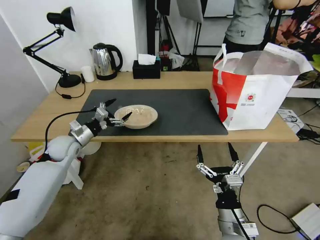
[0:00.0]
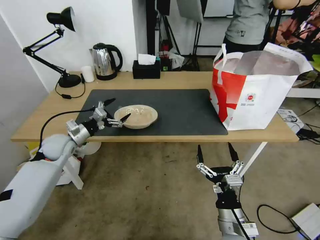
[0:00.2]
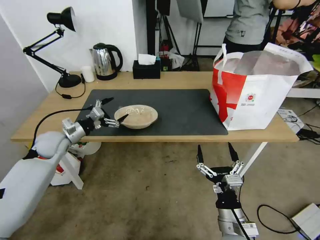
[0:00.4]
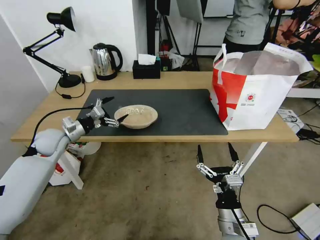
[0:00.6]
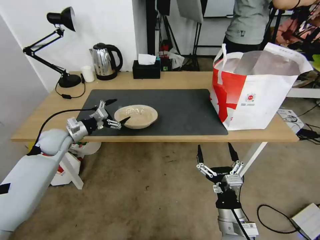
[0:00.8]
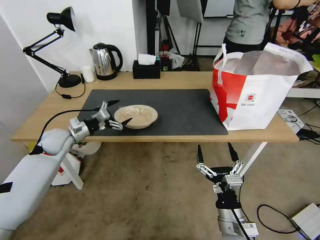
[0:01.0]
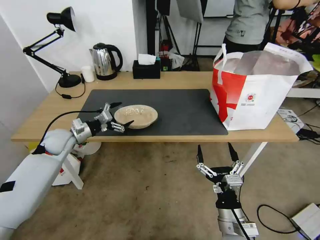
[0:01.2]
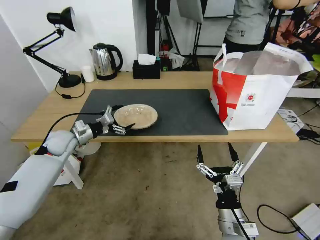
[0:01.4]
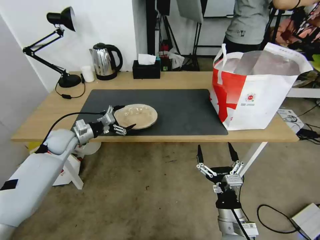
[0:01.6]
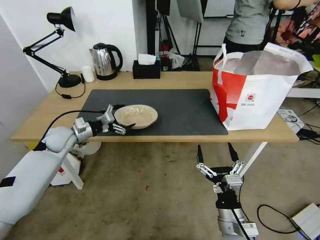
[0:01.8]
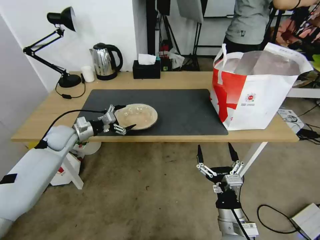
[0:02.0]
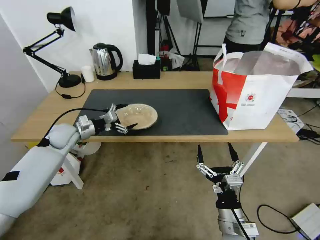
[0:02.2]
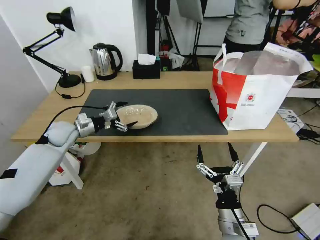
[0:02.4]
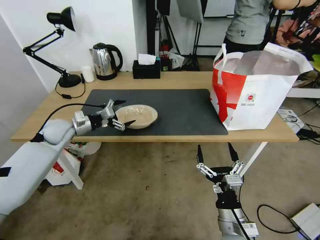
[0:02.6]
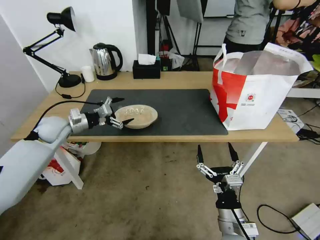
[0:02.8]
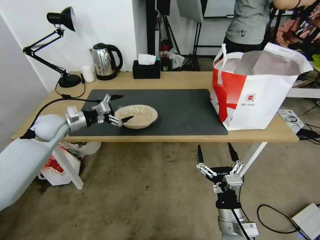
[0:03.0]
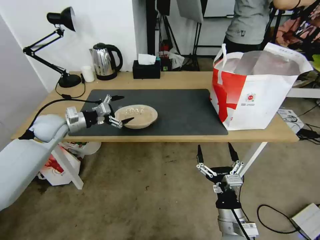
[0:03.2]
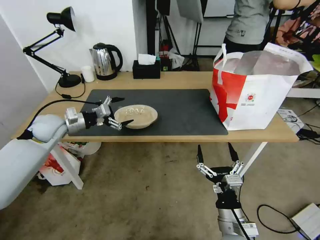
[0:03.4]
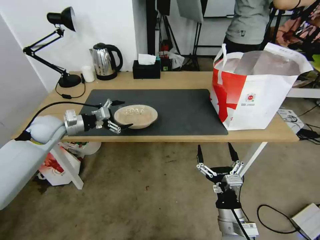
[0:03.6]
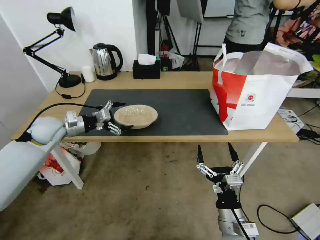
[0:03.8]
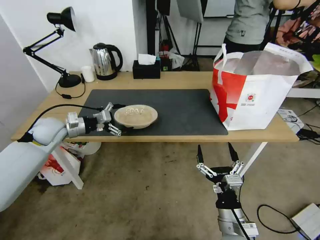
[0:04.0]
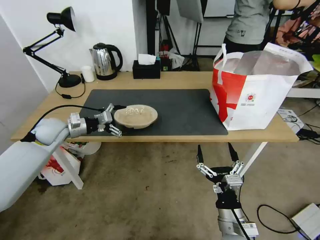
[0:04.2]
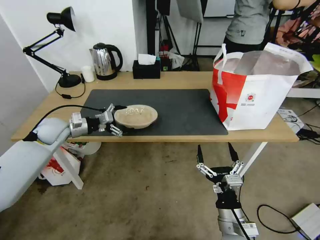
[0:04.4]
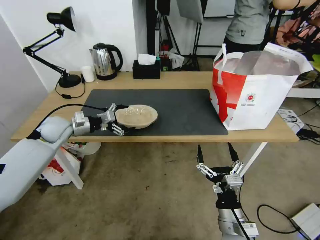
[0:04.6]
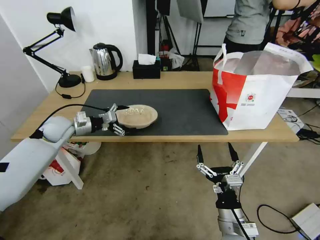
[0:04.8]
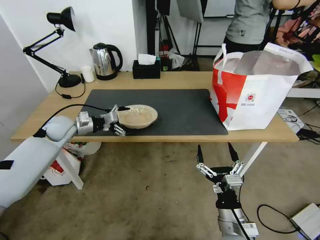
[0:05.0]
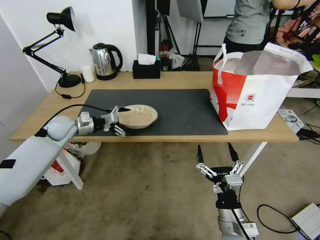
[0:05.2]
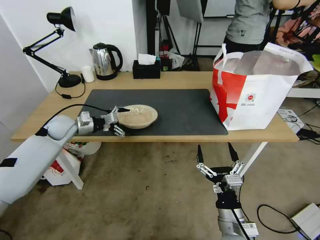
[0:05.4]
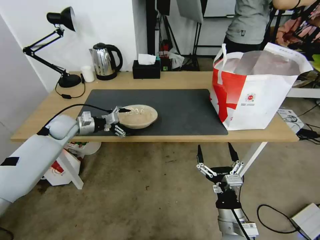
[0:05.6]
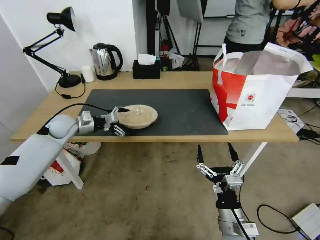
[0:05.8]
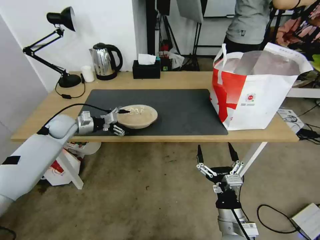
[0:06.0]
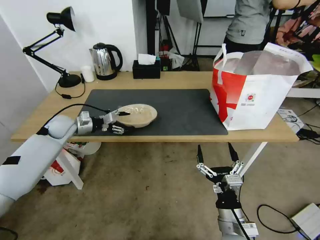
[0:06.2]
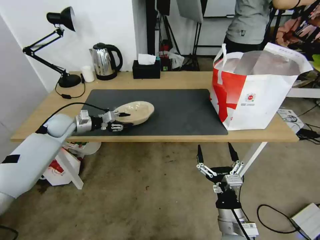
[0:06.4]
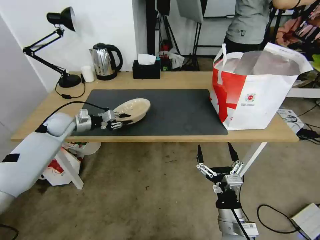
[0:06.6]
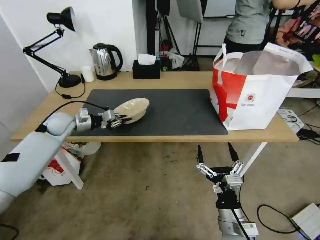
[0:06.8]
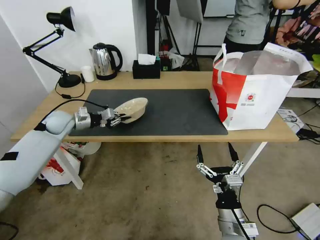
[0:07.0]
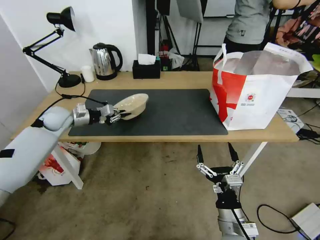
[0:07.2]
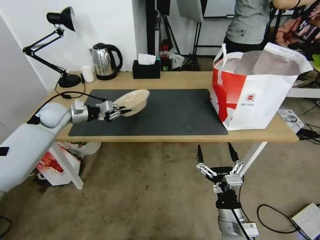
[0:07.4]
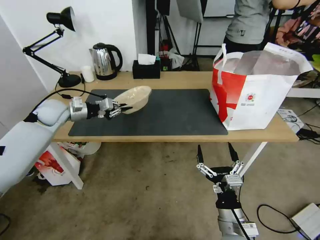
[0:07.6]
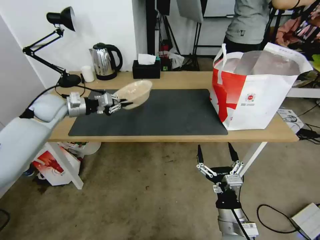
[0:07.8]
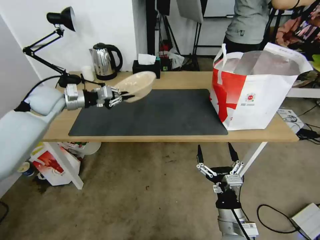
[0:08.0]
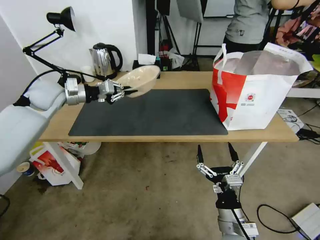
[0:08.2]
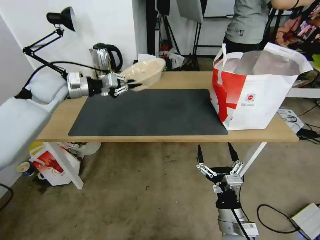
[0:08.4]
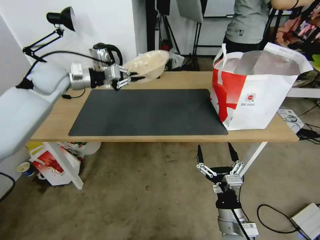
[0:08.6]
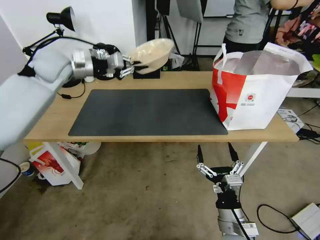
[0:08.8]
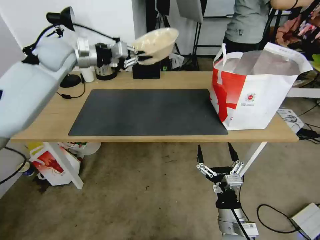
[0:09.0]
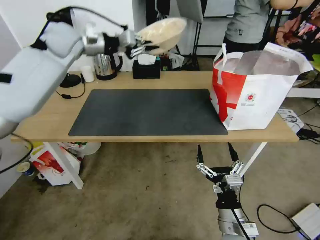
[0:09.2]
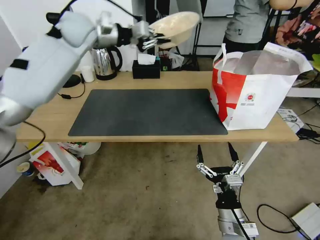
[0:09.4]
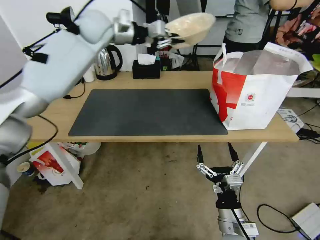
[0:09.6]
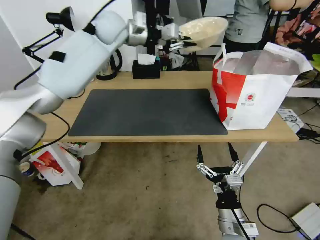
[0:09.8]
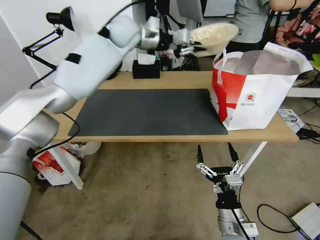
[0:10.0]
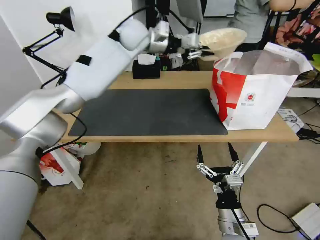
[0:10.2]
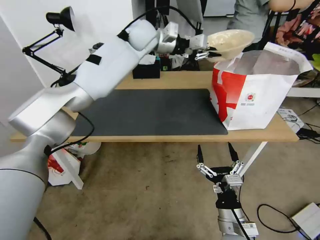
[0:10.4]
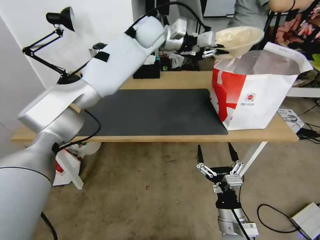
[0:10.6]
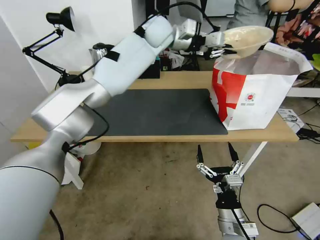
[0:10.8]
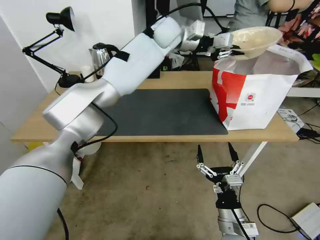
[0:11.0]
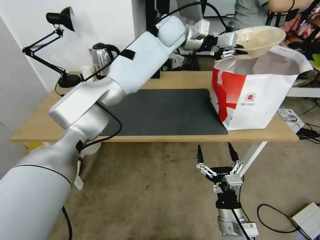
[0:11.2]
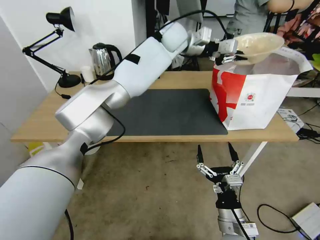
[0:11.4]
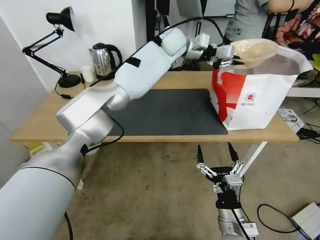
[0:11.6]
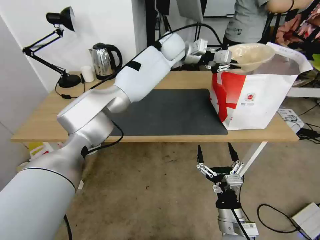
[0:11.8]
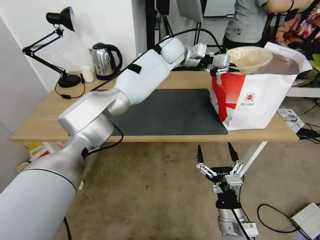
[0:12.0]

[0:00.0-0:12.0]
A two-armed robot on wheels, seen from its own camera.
Task of the whole recording: Pick up the trash from the table and place it into the takeout bag.
0:00.0 to 0:01.6: The grippers move only a little.
0:01.6 to 0:03.0: The left gripper moves upward, approximately 5 cm.
0:03.0 to 0:06.0: The grippers stay close to where they were, moving slightly.
0:06.0 to 0:07.6: The left gripper moves upward, approximately 5 cm, and closes its fingers.
0:07.6 to 0:09.0: The left gripper shifts approximately 20 cm upward and to the right.
0:09.0 to 0:10.4: The left gripper moves to the right, some 25 cm.
0:10.4 to 0:12.0: The left gripper goes approximately 10 cm to the right and downward.

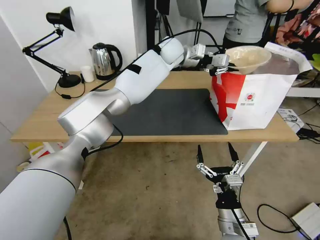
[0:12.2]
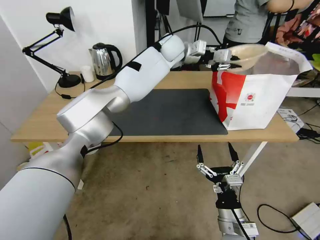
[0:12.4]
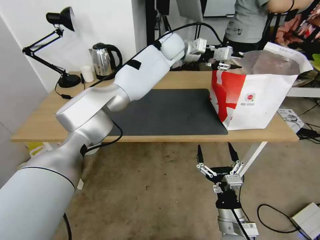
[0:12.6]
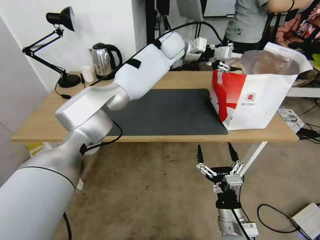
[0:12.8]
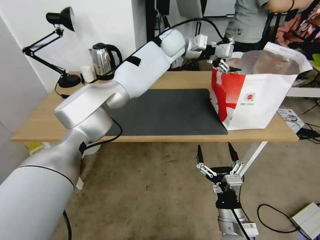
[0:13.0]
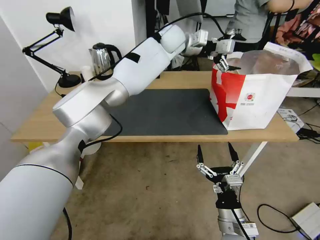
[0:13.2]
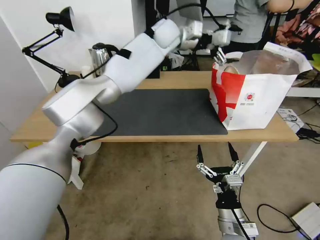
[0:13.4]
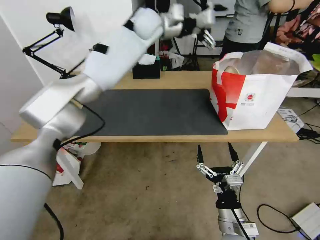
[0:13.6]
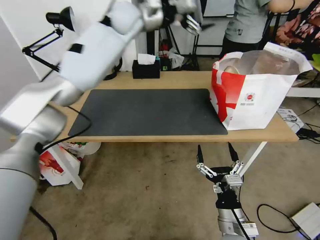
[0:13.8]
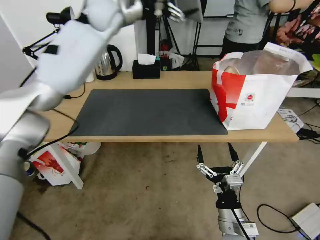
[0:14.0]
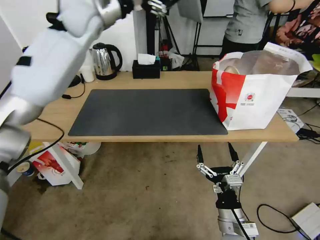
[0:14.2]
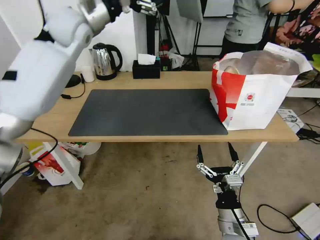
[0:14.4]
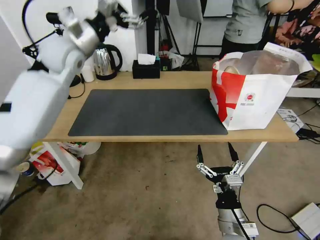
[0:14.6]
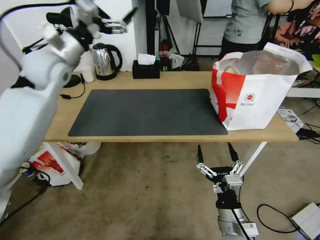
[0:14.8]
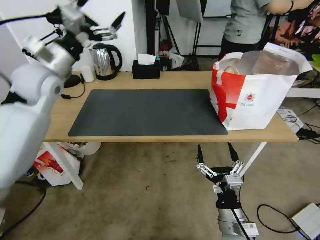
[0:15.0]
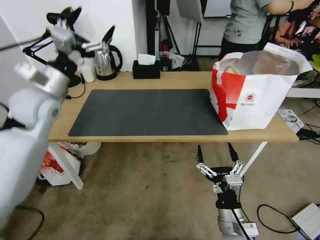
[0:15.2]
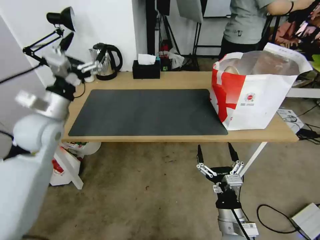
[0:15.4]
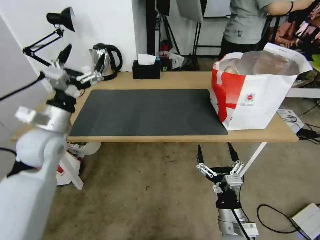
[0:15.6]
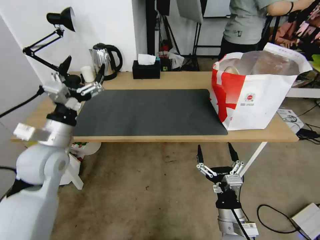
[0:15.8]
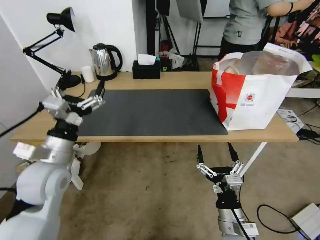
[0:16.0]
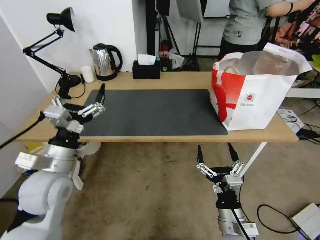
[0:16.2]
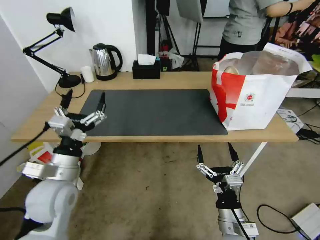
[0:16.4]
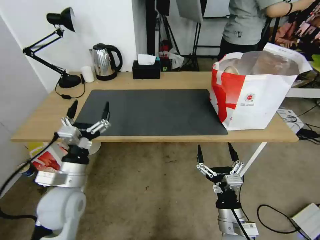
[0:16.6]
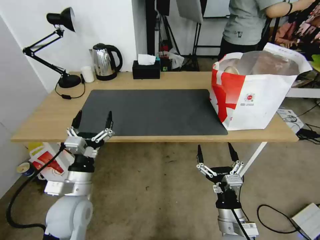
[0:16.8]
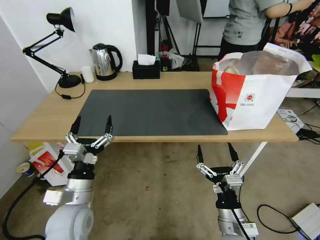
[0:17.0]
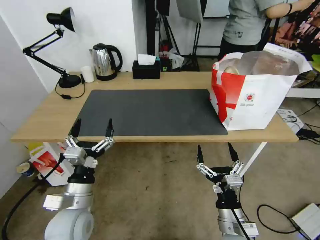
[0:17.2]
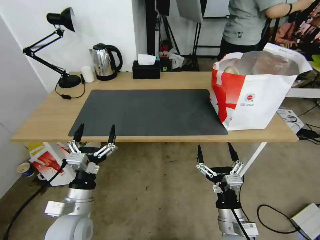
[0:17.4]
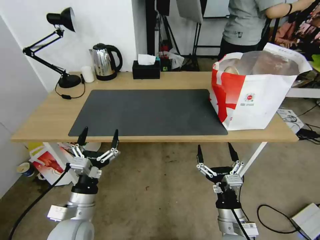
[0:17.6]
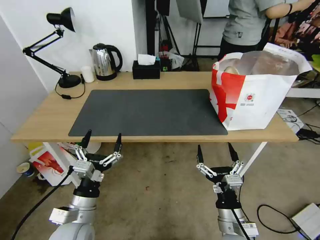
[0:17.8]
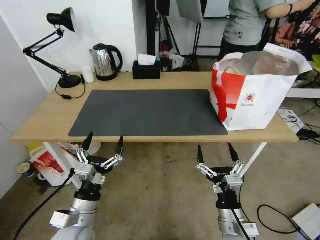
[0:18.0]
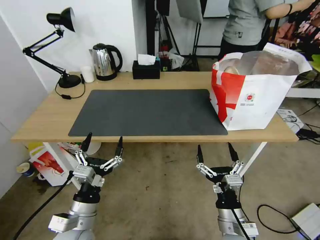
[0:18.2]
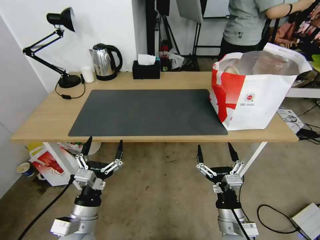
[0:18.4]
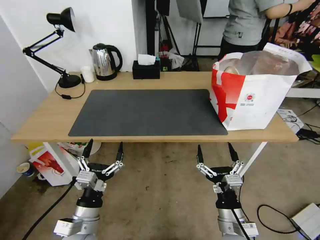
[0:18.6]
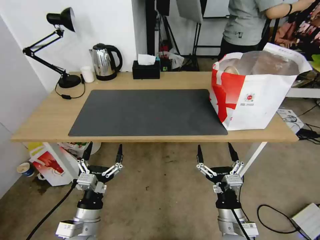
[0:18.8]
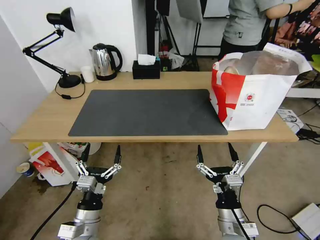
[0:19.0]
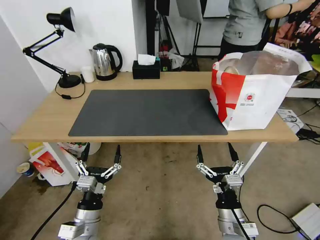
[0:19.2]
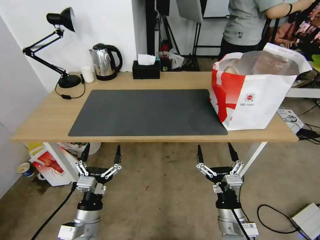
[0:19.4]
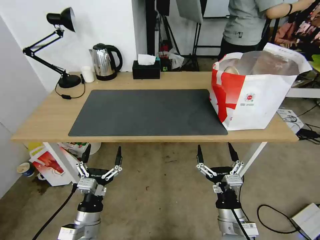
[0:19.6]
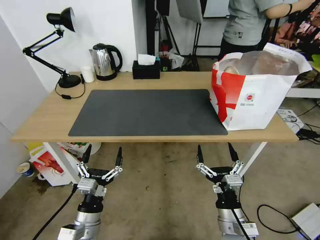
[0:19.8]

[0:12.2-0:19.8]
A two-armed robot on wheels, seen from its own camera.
Task of the whole recording: Pick up the trash from the table and place it into the takeout bag.
0:12.2 to 0:13.8: The left gripper goes approximately 15 cm to the left and upward, and opens.
0:13.8 to 0:15.2: The left gripper moves backward, to the left and downward, roughly 30 cm.
0:15.2 to 0:16.8: The left gripper heads downward and backward, covering approximately 30 cm.
0:16.8 to 0:18.2: The left gripper moves backward, roughly 5 cm.
0:18.2 to 0:19.8: The left gripper changes place by some 5 cm.
